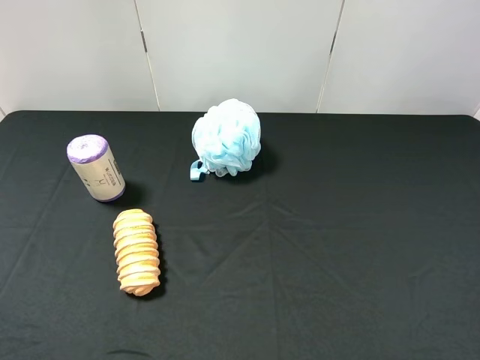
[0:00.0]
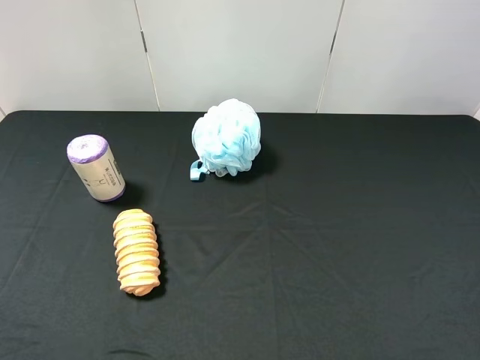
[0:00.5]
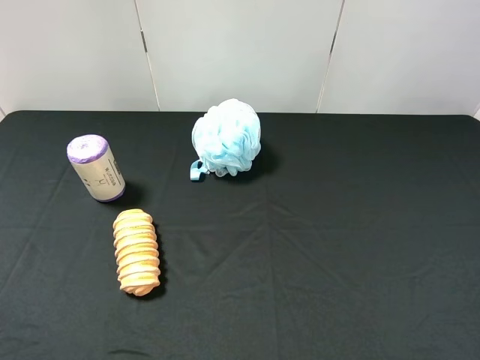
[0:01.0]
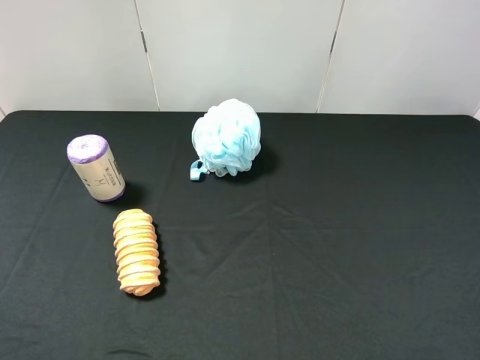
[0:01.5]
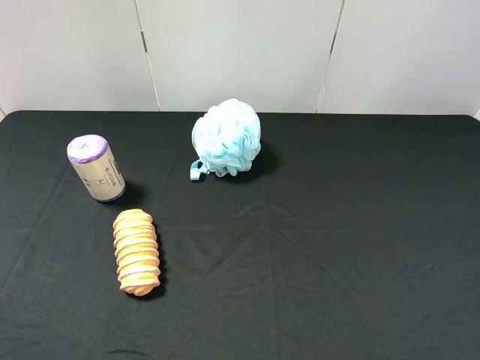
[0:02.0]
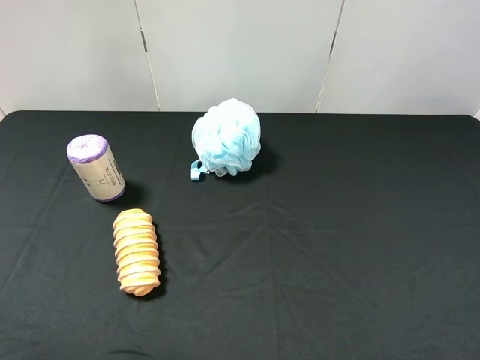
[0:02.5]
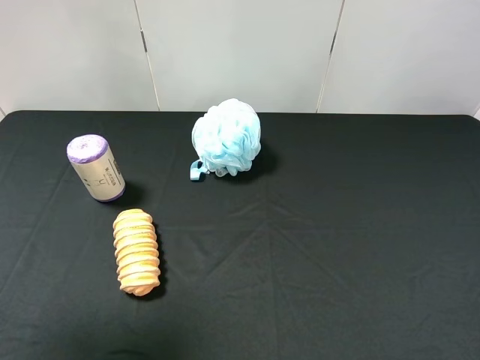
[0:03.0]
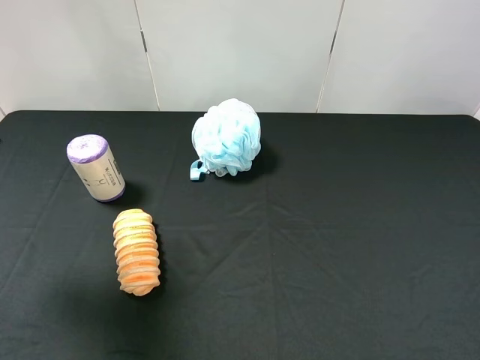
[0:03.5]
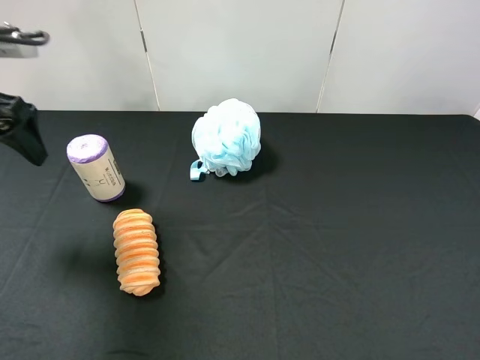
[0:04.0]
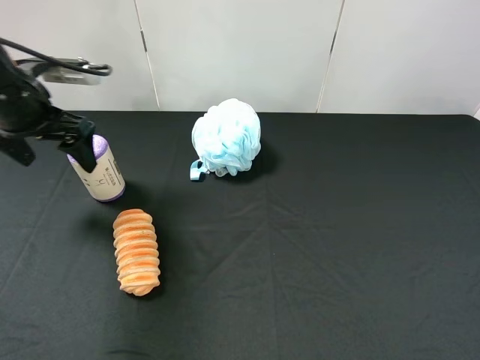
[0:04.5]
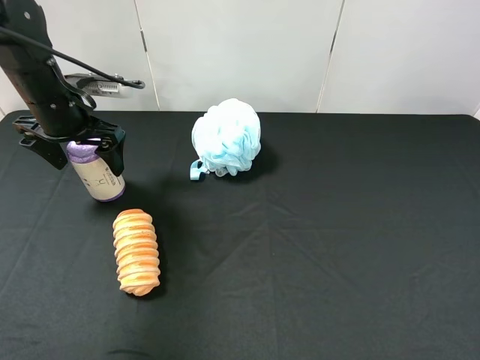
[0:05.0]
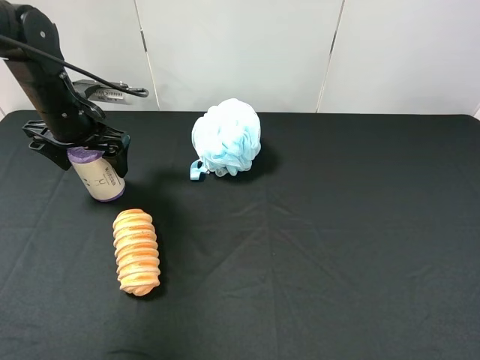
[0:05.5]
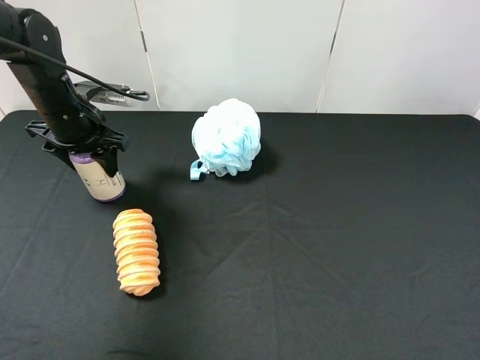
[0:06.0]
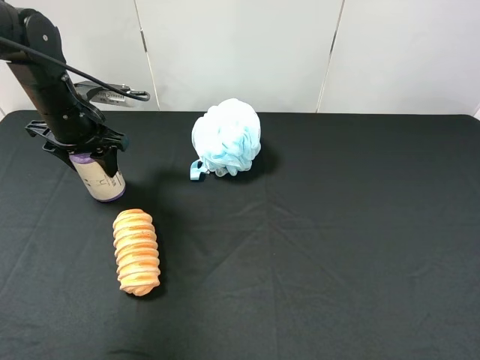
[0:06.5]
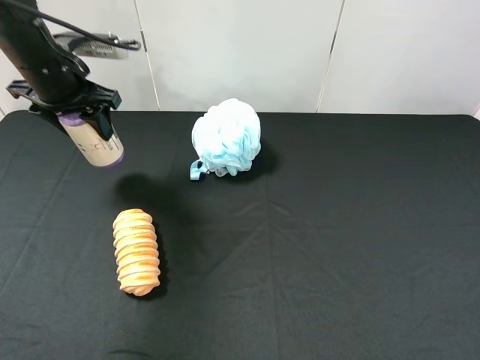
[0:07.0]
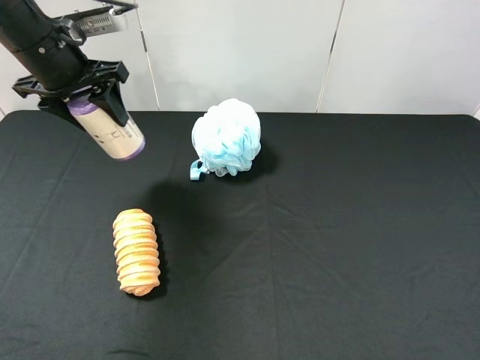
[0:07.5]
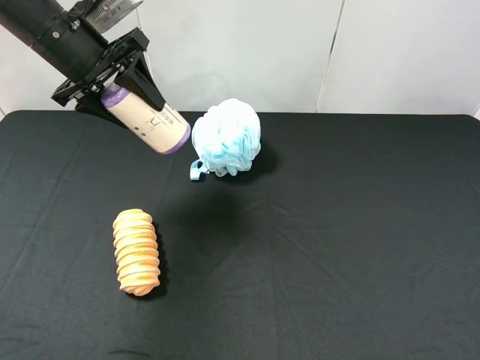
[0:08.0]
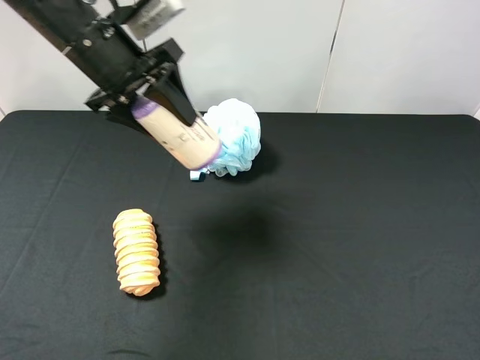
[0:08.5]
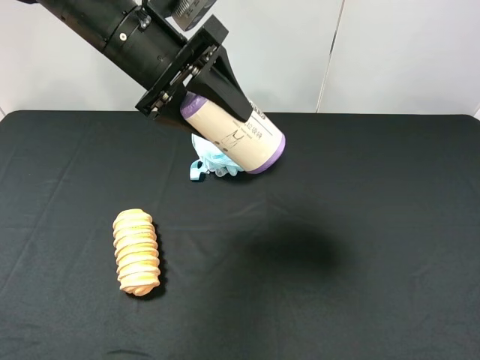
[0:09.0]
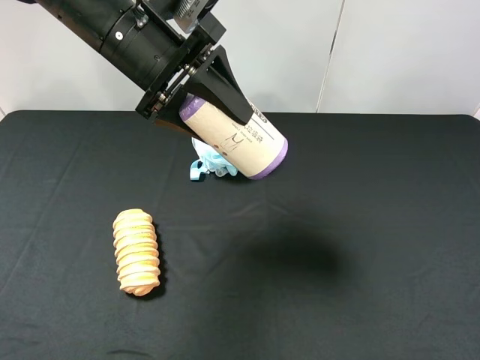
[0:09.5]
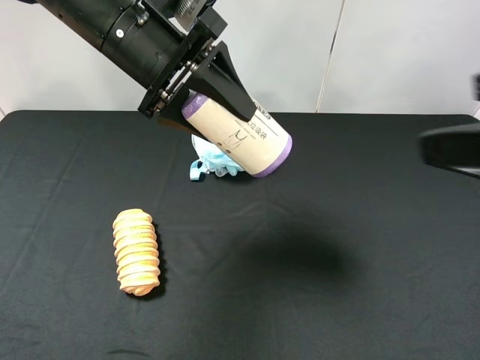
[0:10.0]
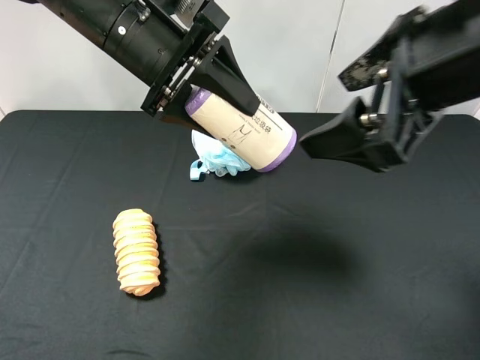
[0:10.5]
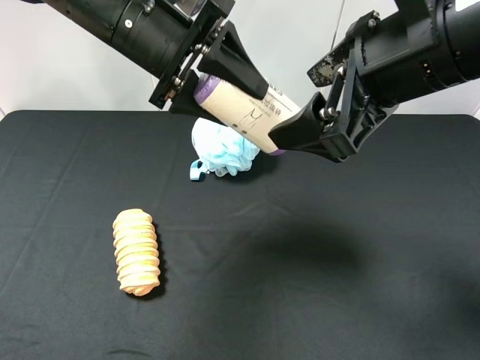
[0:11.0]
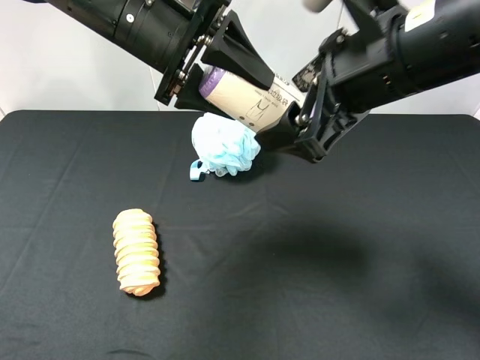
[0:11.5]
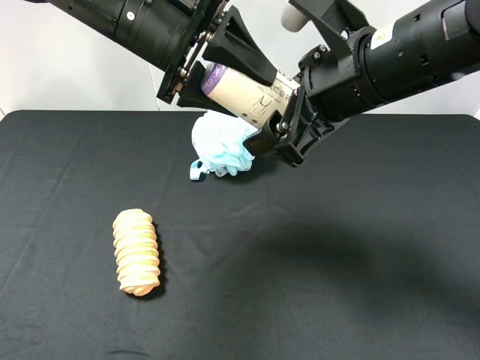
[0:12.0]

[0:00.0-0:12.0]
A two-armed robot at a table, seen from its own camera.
Task of the whole recording: use the left gripper to pick up the item and transfer it from the left gripper to the right gripper.
0:02.0 to 0:04.0: The left gripper goes some 25 cm forward.
0:04.0 to 0:06.0: The left gripper moves downward, forward and to the right, roughly 15 cm, and closes up.
0:06.0 to 0:08.0: The left gripper moves upward, about 10 cm.
0:08.0 to 0:10.0: The right gripper heads forward, upward and to the left, covering about 15 cm. The left gripper moves to the right, about 10 cm.
0:10.0 to 0:12.0: The right gripper travels forward, to the left and downward by roughly 20 cm.

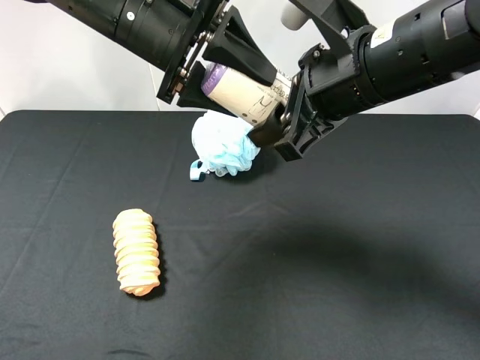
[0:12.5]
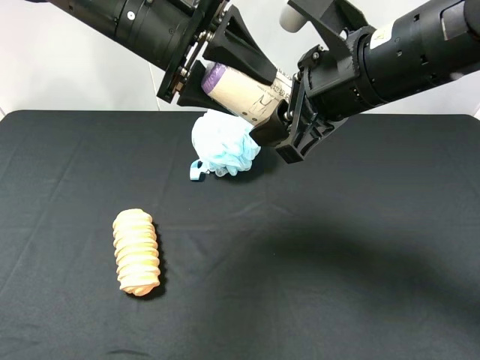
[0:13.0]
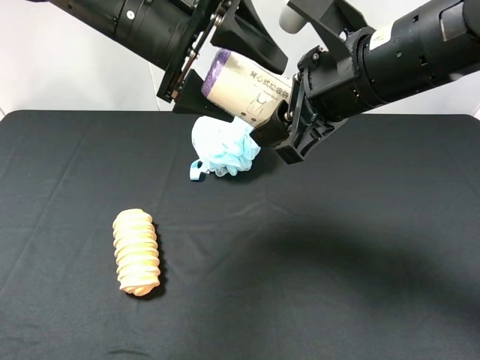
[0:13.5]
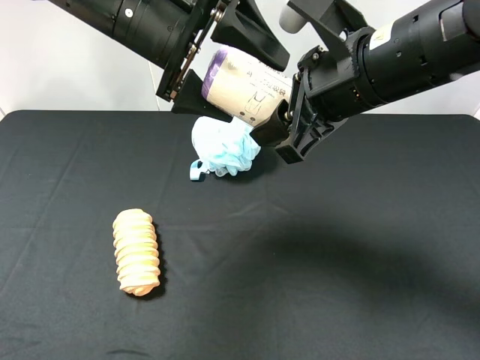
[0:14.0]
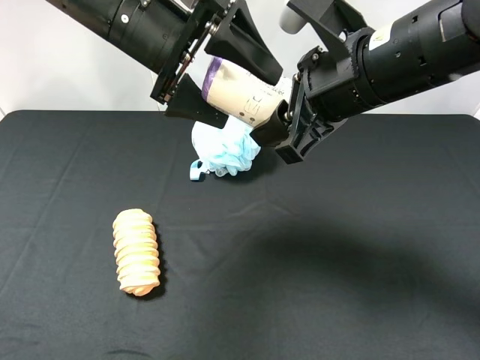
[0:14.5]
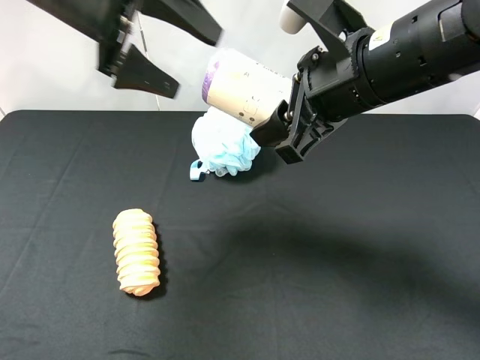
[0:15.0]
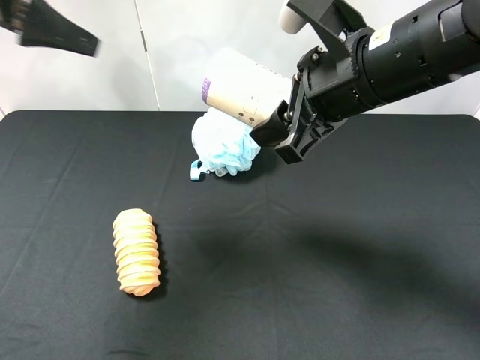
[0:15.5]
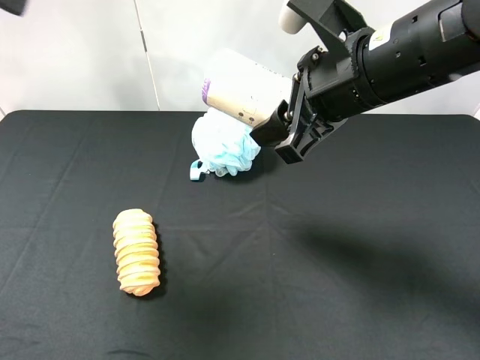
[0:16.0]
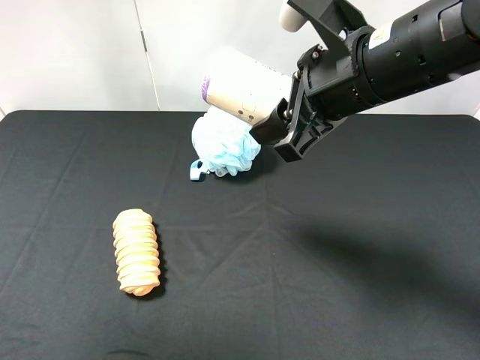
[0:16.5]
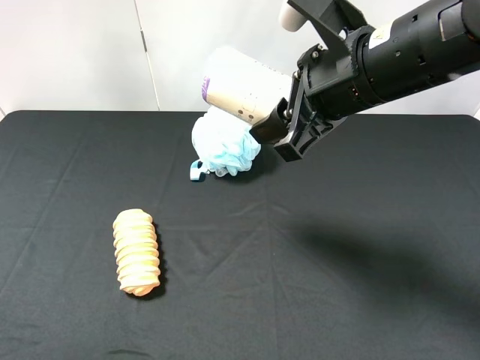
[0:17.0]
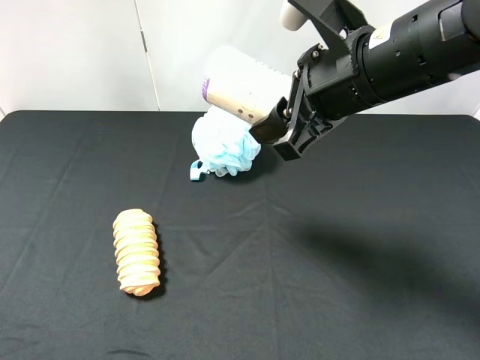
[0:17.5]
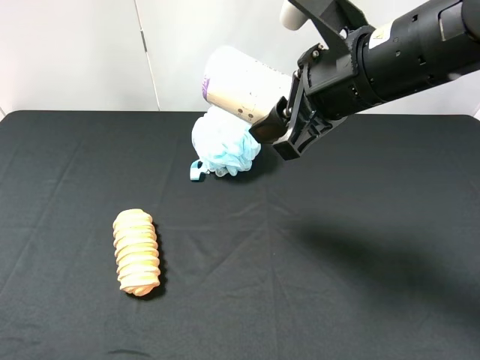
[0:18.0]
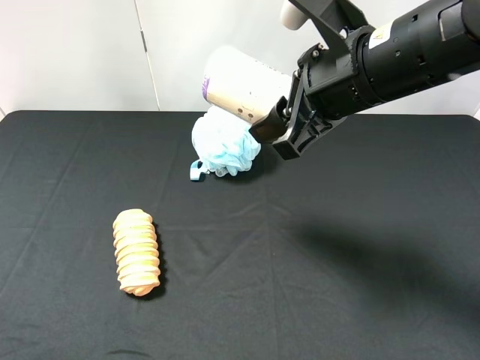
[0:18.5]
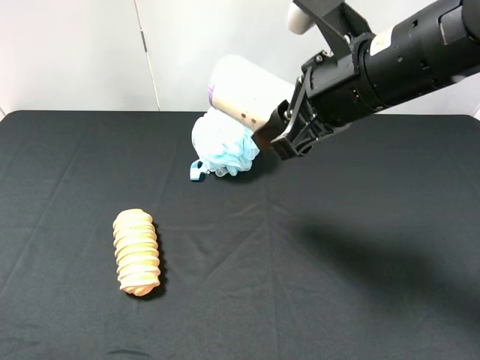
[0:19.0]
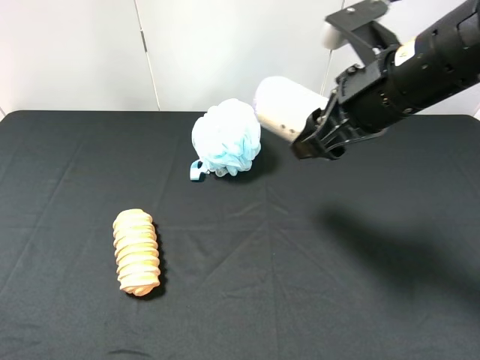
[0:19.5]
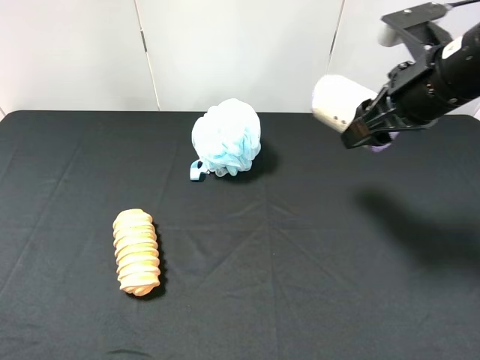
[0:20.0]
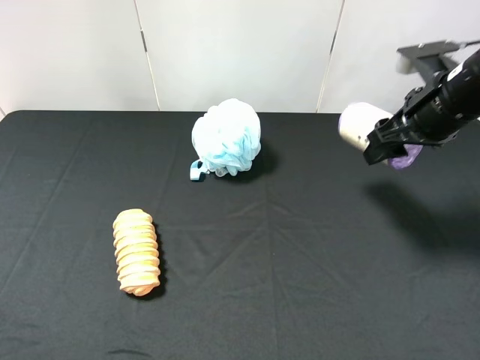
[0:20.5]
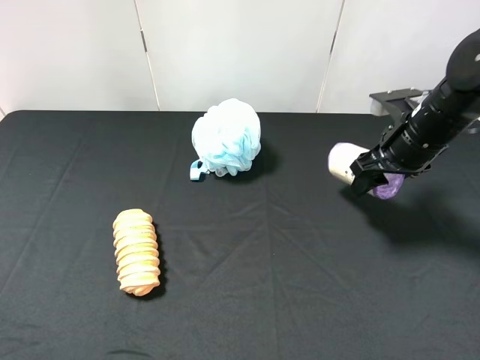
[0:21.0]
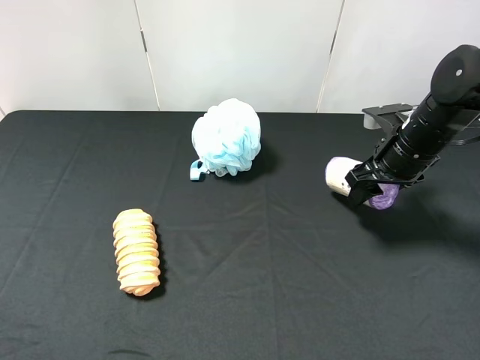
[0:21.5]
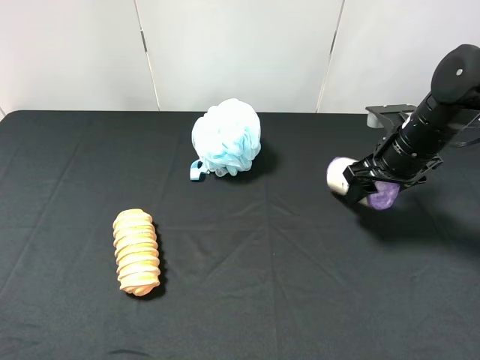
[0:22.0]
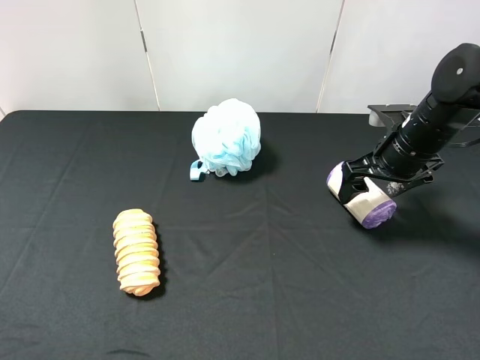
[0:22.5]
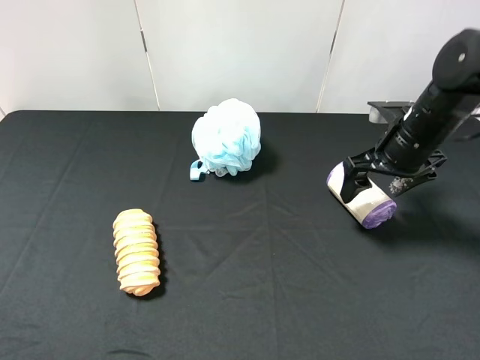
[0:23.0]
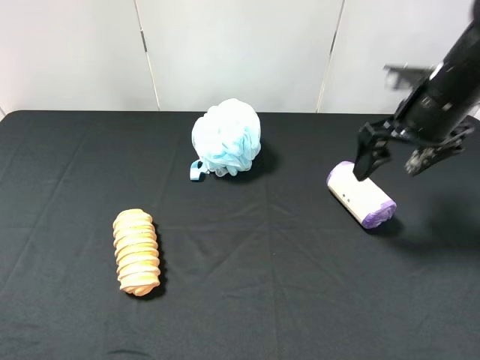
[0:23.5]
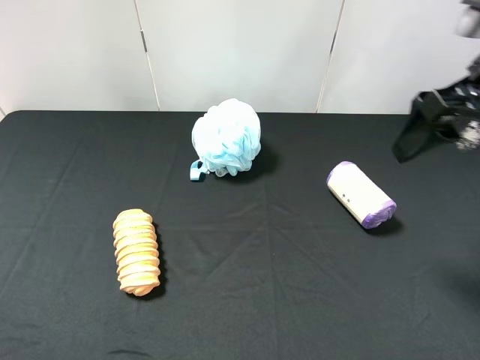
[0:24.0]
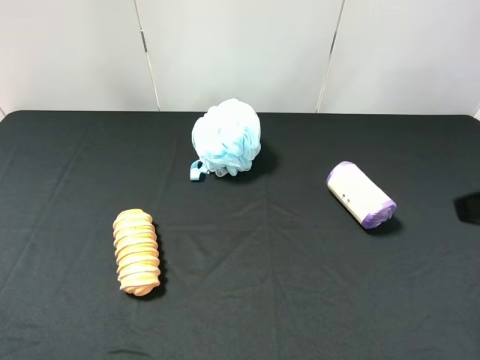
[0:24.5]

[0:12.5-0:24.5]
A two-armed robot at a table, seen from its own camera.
Task of the whole recording: use the left gripper to pick up the item and transfer it from the left gripper to the right gripper.
0:12.5 to 0:14.5: The left gripper opens its fingers.
0:14.5 to 0:16.5: The left gripper heads to the left, backward and upward, covering roughly 30 cm.
0:16.5 to 0:18.5: The left gripper travels downward and backward by some 20 cm.
0:18.5 to 0:20.5: The right gripper travels to the right, forward and downward by some 15 cm.
0:20.5 to 0:22.5: The right gripper travels downward by roughly 5 cm, and opens.
0:22.5 to 0:24.5: The right gripper travels backward and upward by roughly 25 cm.

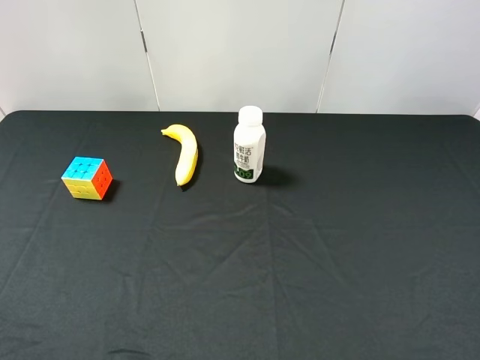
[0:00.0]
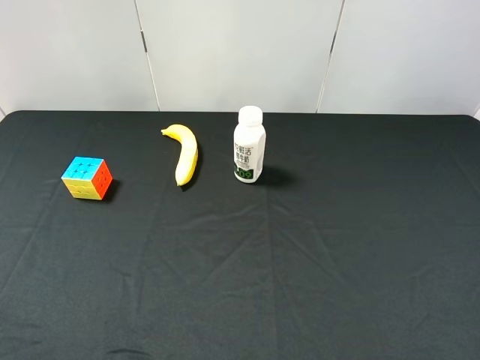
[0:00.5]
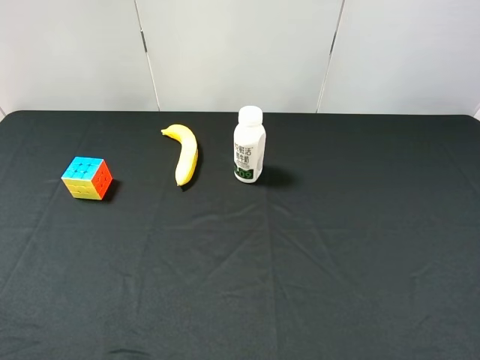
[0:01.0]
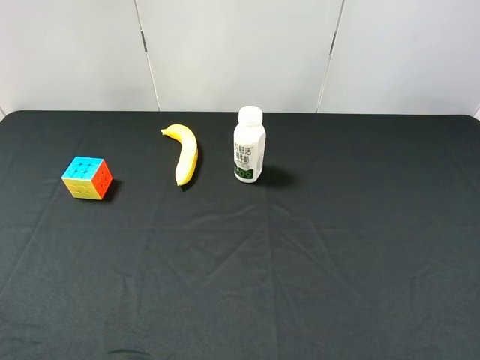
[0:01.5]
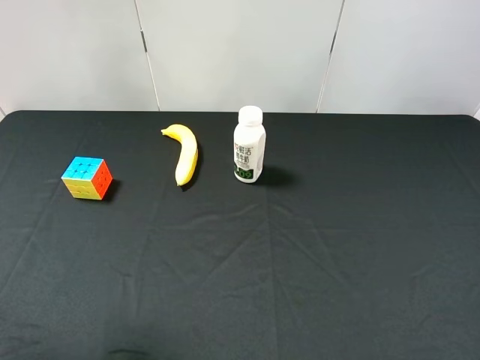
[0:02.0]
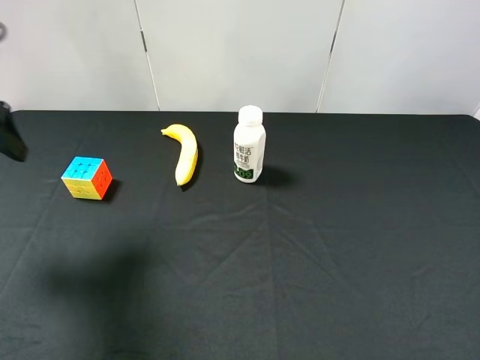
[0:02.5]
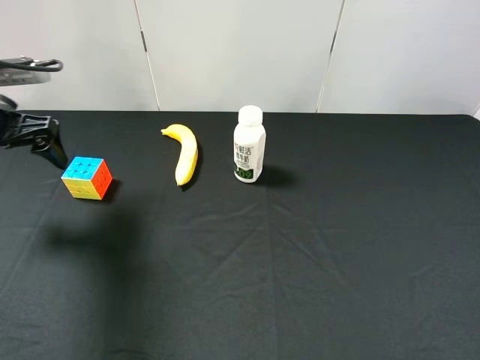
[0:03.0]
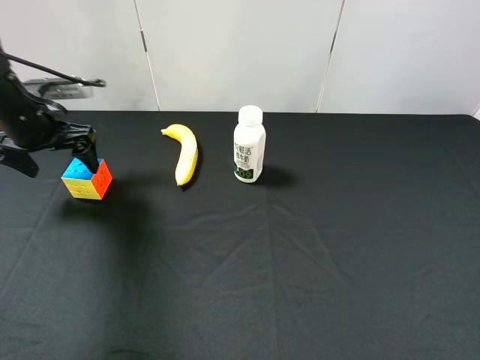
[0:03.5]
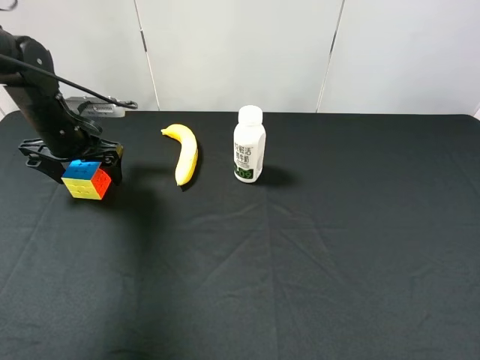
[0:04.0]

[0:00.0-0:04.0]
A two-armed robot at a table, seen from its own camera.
Task of the whole recording: use the left gripper to pick up the item and transfer it from the left gripper to the right gripper.
0:02.0 to 0:04.0: The left gripper shifts approximately 35 cm forward and downward.
